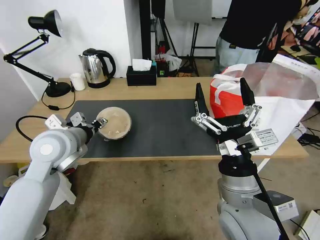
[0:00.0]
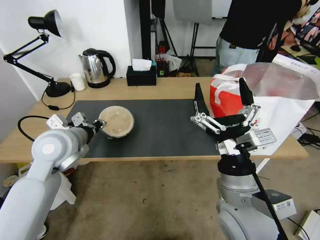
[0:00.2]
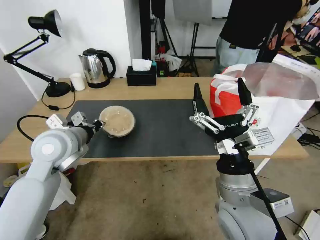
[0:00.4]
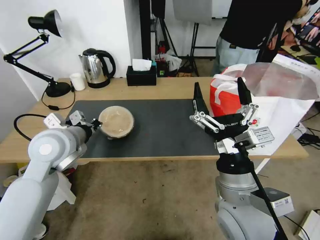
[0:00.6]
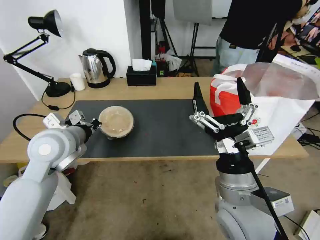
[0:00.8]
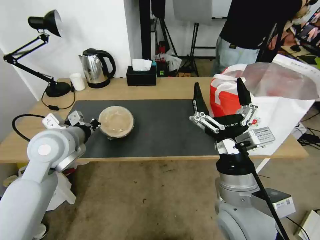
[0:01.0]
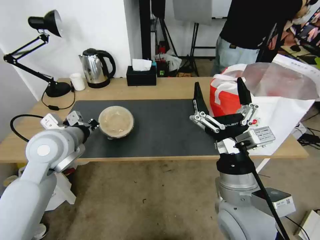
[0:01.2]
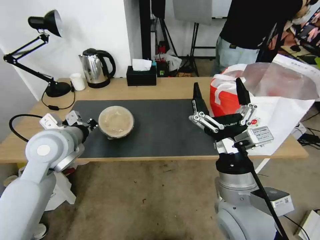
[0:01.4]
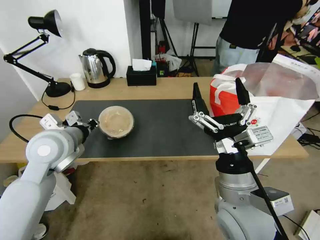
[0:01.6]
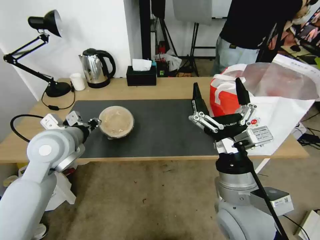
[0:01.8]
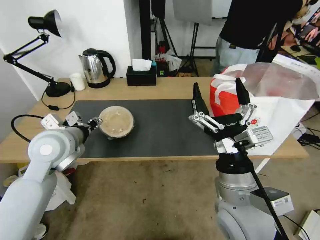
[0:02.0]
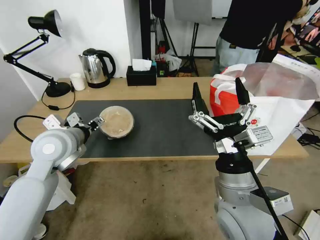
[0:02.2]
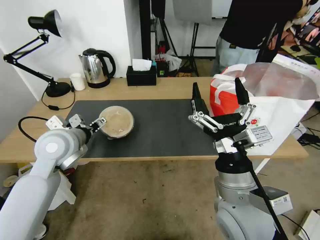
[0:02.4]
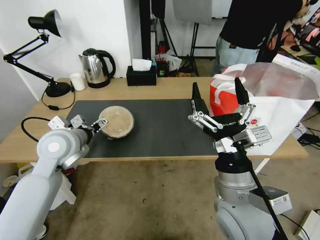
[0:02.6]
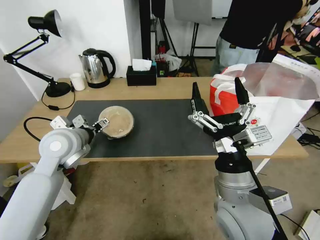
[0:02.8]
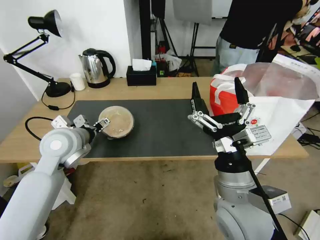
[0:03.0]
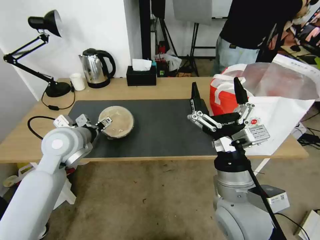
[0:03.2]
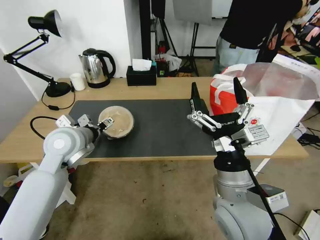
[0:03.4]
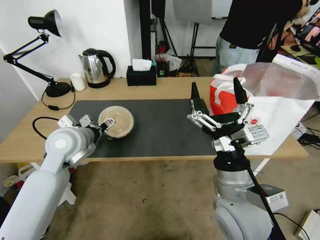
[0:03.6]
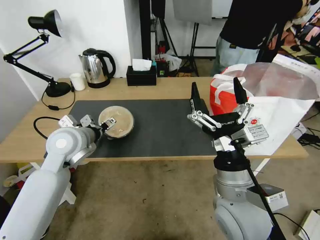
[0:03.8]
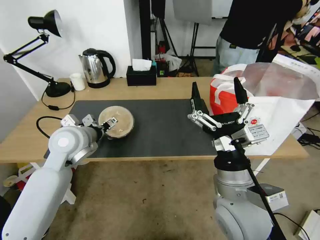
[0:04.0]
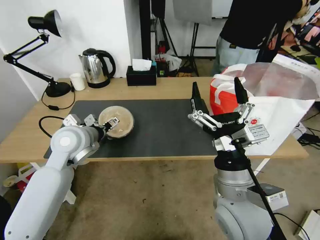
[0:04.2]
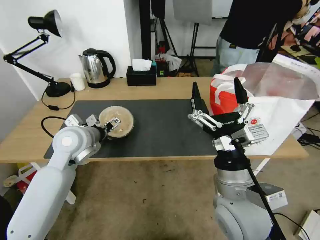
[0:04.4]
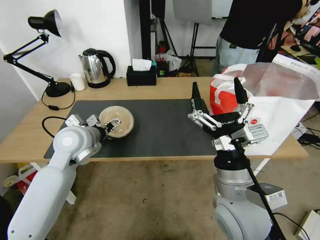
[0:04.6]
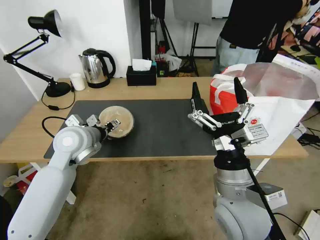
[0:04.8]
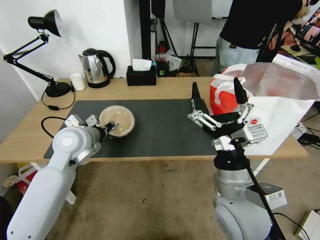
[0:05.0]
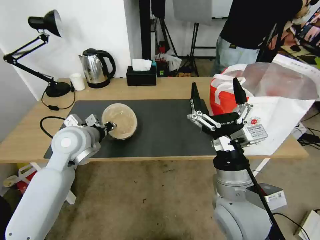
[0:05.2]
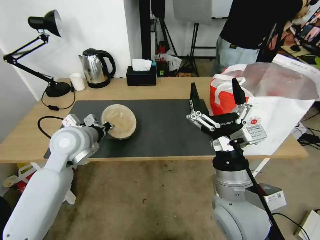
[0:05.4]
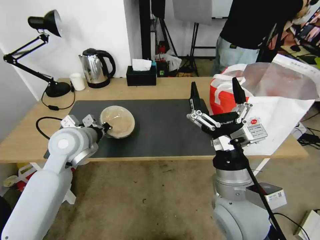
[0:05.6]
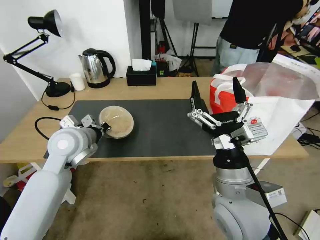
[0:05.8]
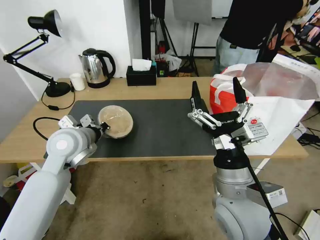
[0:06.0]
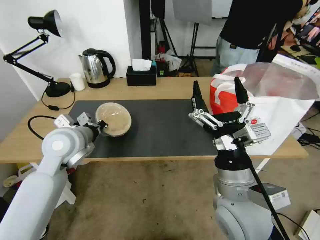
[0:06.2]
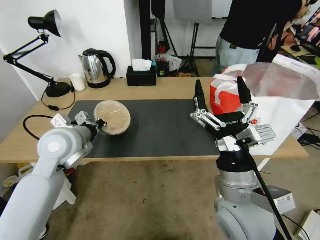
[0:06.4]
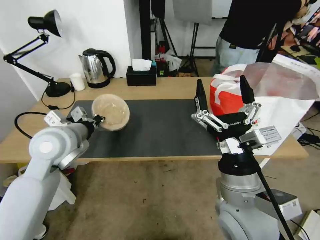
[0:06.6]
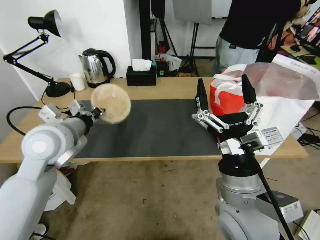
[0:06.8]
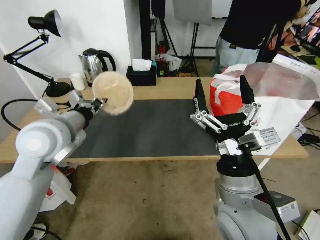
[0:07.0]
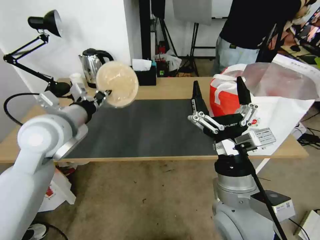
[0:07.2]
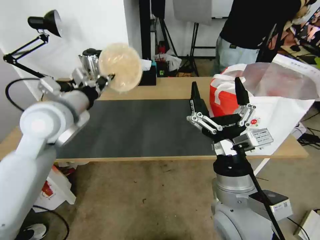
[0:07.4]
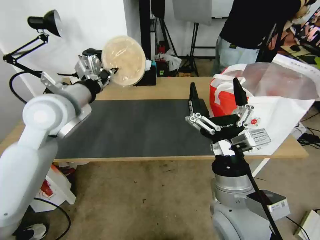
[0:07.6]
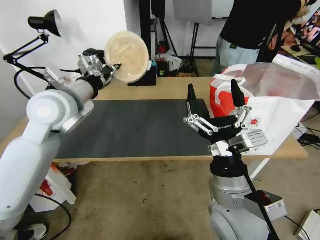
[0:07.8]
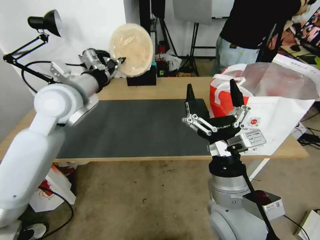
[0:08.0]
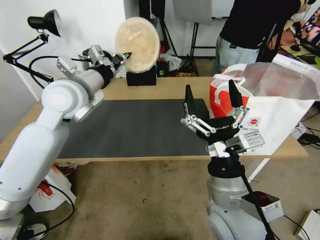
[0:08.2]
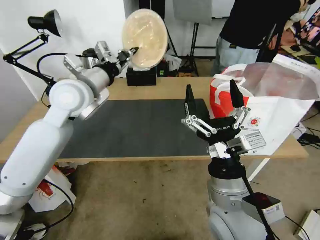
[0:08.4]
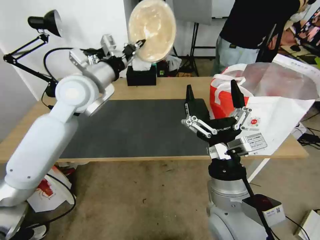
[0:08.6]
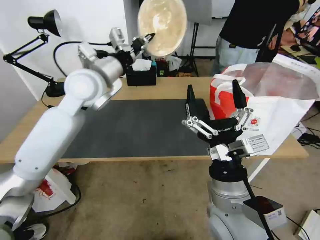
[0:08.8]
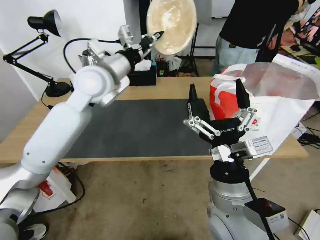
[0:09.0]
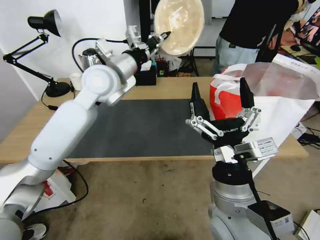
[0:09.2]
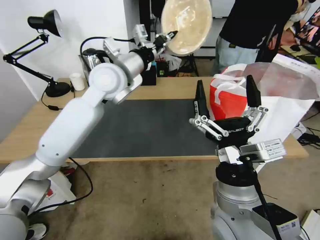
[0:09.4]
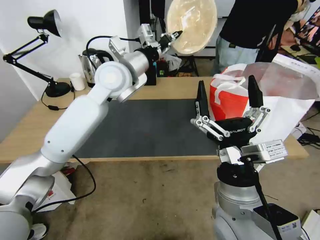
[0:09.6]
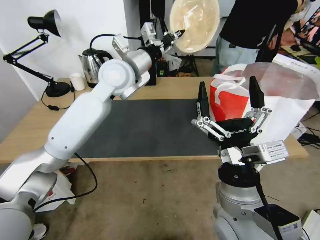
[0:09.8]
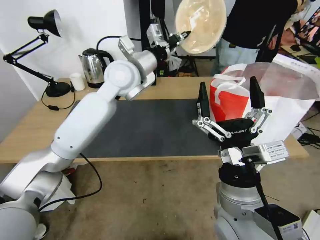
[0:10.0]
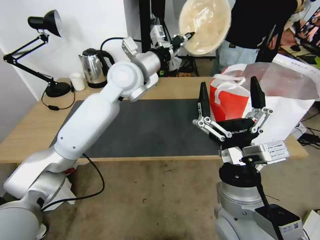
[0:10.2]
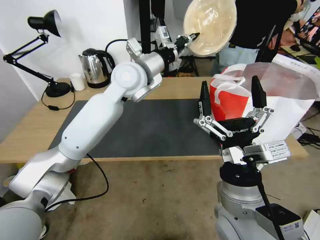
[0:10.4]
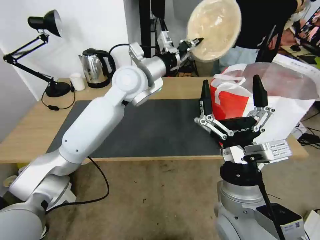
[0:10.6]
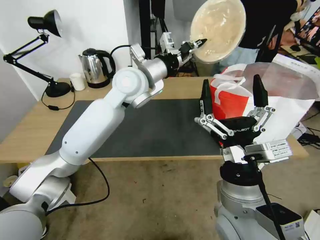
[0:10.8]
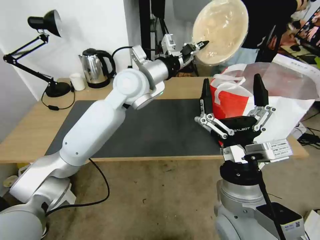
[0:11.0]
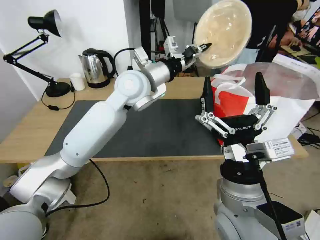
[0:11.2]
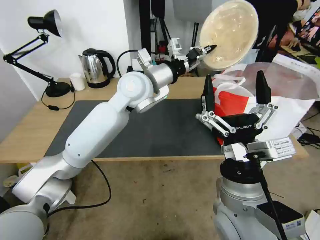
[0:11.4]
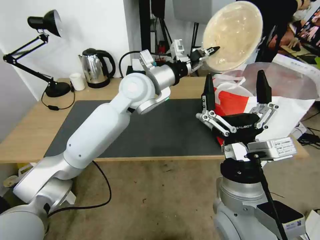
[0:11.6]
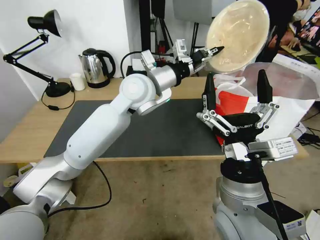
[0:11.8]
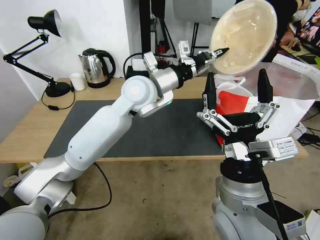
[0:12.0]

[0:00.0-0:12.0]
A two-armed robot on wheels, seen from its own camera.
Task of the whole recording: Pick up the trash from the table and place it into the takeout bag.
0:00.0 to 0:01.6: The left gripper closes.
0:01.6 to 0:03.0: The left gripper opens.
0:03.0 to 0:04.4: There are only small adjustments of the grippers.
0:04.4 to 0:06.0: The left gripper closes up.
0:06.0 to 0:07.6: The left gripper shifts approximately 10 cm upward.
0:07.6 to 0:09.0: The left gripper shifts approximately 10 cm to the right and forward.
0:09.0 to 0:10.4: The left gripper travels to the right by roughly 10 cm.

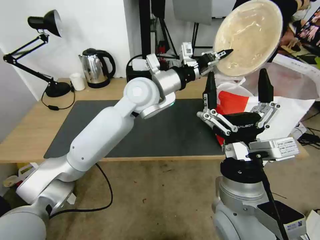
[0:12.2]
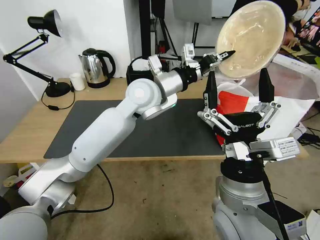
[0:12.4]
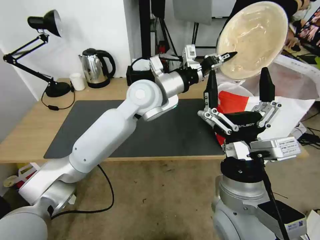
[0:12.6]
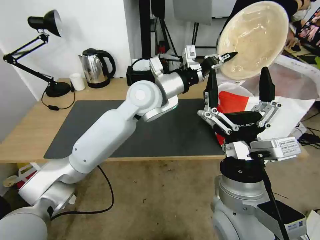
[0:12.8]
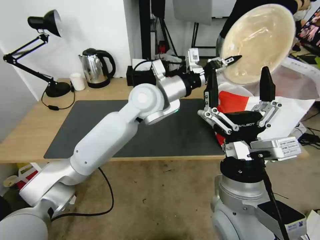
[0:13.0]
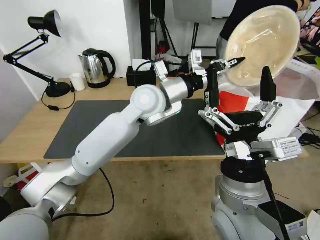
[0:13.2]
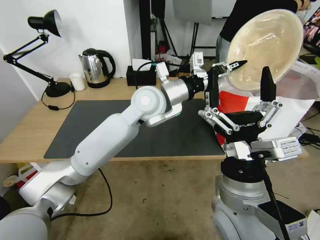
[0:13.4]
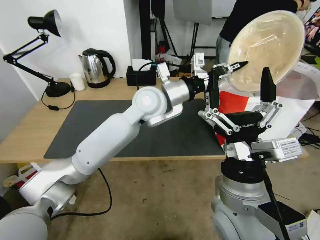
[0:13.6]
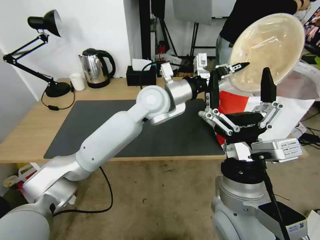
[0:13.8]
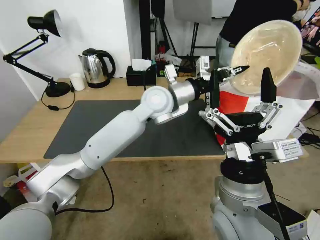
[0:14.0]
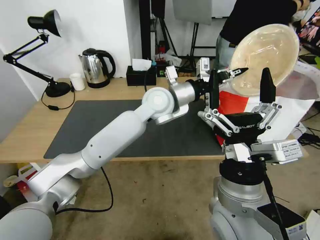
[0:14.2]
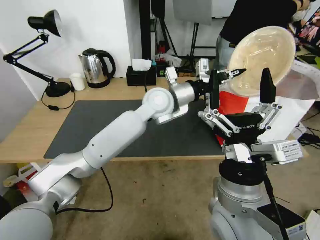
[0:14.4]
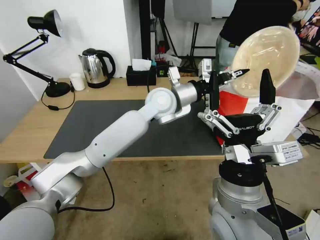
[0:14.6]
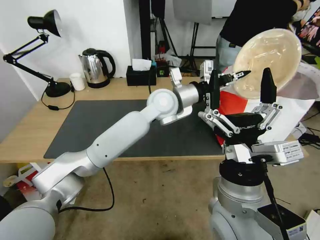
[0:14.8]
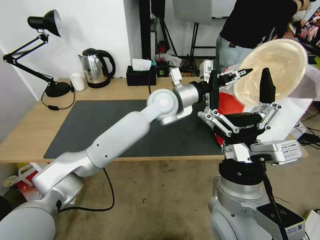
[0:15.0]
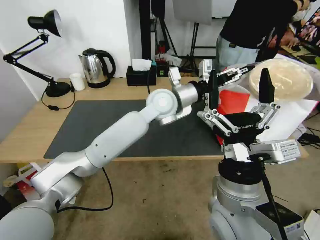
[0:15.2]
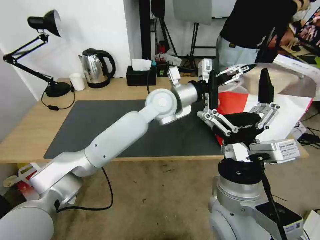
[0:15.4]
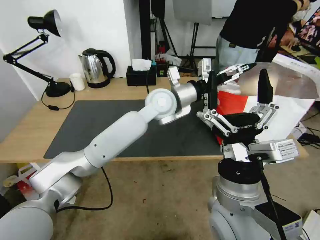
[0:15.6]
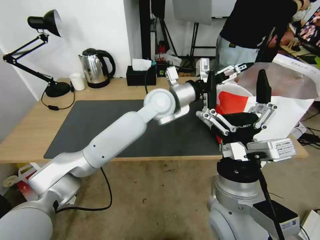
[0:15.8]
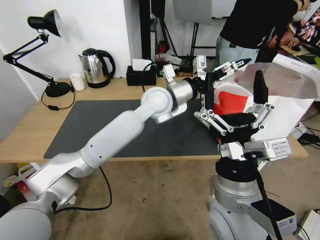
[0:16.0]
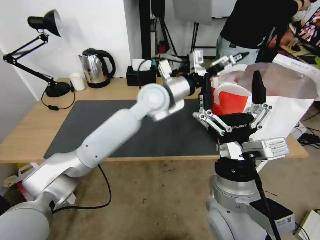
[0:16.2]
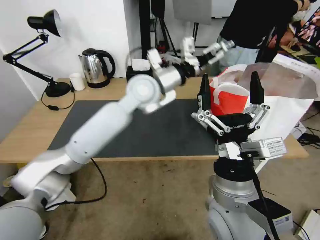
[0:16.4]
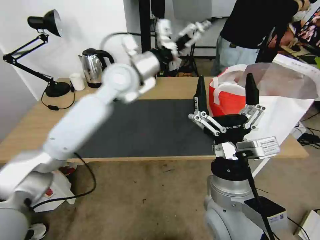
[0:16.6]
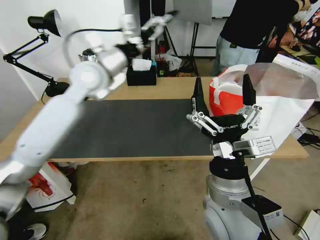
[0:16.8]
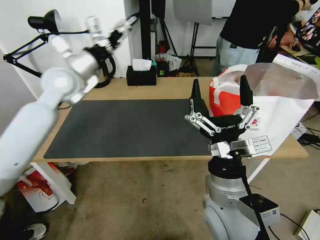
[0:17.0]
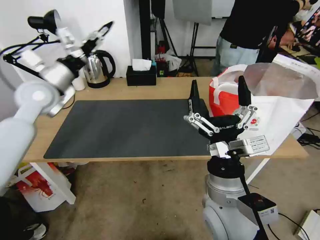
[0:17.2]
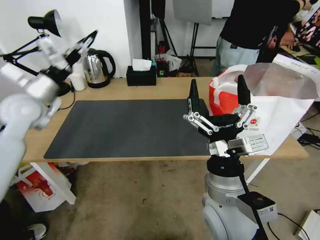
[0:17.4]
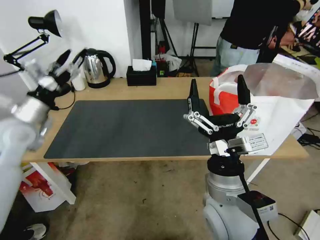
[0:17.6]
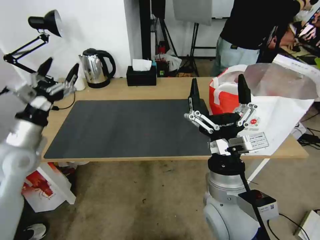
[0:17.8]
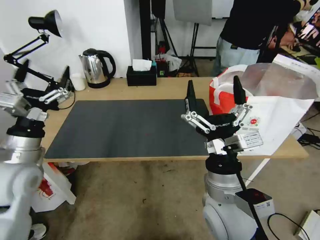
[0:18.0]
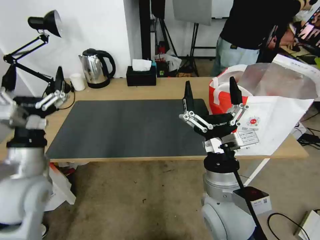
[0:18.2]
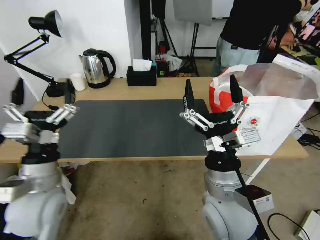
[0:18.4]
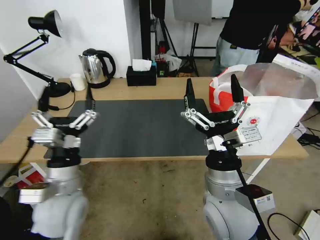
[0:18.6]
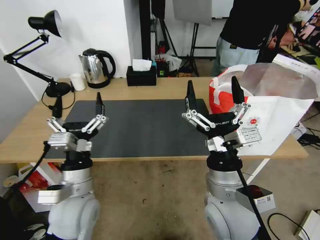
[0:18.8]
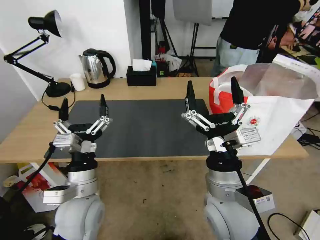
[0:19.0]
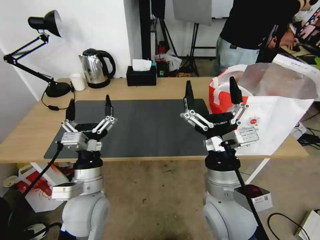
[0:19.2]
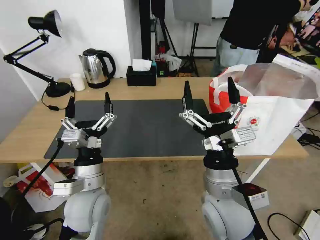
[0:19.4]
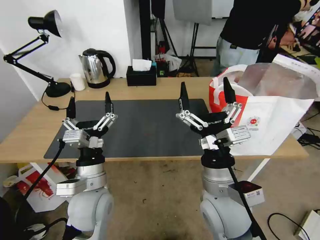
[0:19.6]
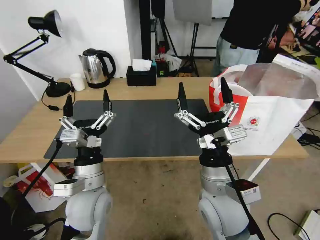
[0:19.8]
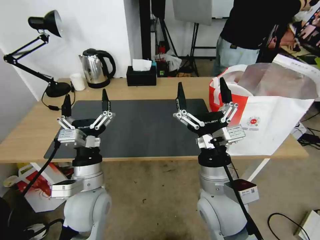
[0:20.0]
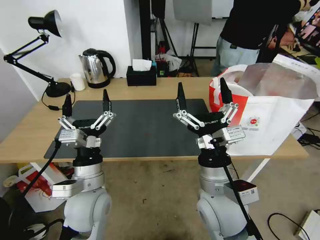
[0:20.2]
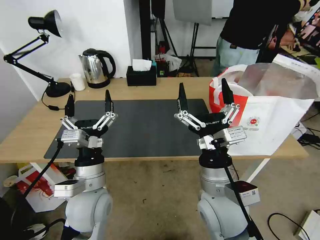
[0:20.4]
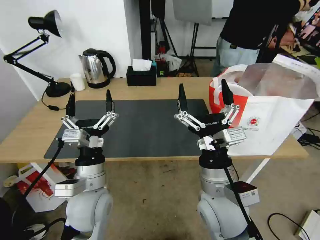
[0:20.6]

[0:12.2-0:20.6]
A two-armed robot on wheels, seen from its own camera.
Task of the whole recording: Pick up the trash from the table and place it into the takeout bag.
0:12.2 to 0:13.6: The grippers move only a little.
0:13.6 to 0:15.0: The left gripper changes place by some 5 cm.
0:15.0 to 0:16.4: The left gripper is displaced to the left and upward by about 10 cm, and opens.
0:16.4 to 0:17.8: The left gripper travels to the left and backward by about 35 cm.
0:17.8 to 0:19.2: The left gripper travels to the right and downward by approximately 20 cm.
0:19.2 to 0:20.6: There are only small adjustments of the grippers.

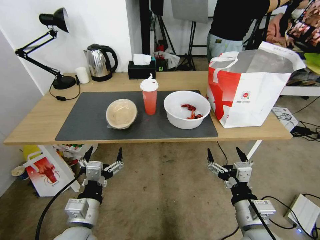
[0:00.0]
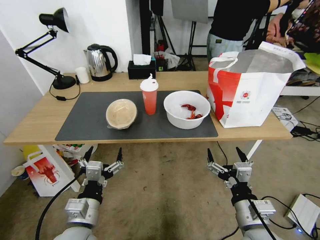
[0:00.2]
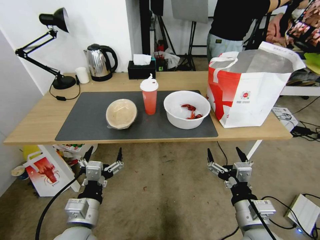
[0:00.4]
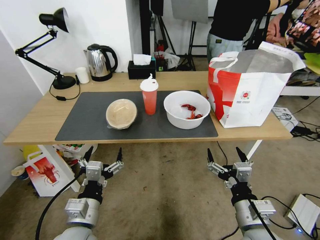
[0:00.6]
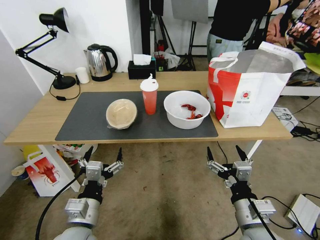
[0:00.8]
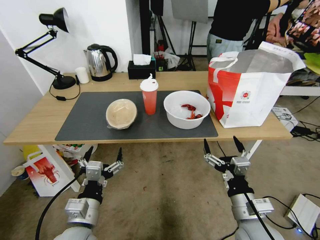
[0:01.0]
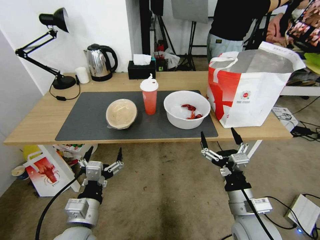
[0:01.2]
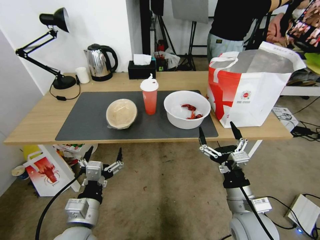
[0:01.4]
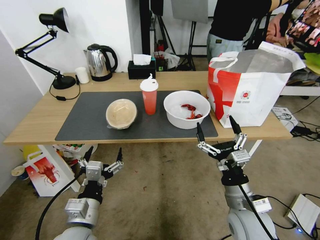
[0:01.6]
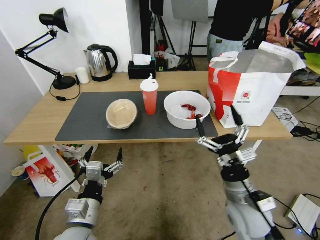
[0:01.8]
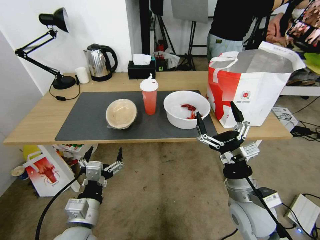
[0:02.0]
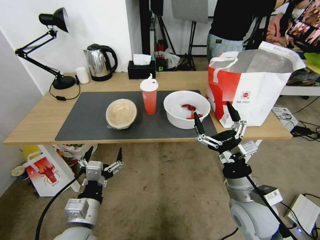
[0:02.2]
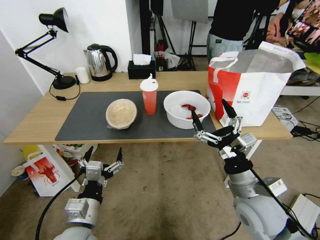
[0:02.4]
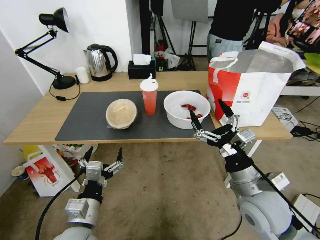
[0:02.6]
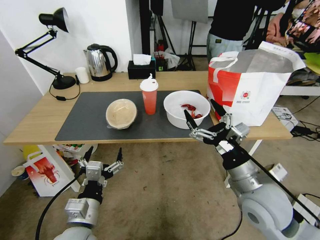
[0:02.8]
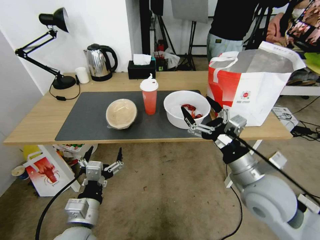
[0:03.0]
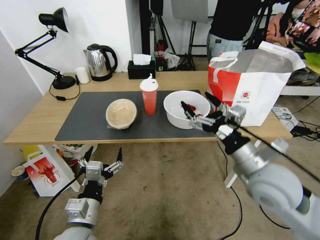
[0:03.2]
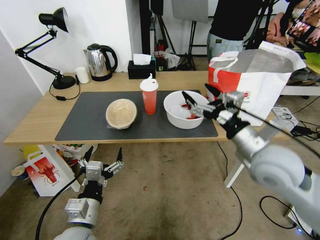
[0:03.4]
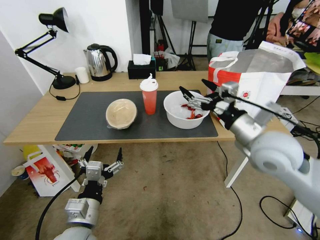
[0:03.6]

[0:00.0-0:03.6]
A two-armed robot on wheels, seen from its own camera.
Task of the whole recording: Pick up the trash from the table and place it into the takeout bag.
0:01.8 to 0:03.6: The right gripper moves upward and forward, some 20 cm.
